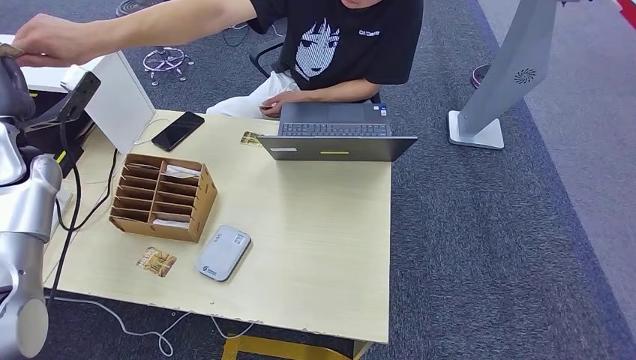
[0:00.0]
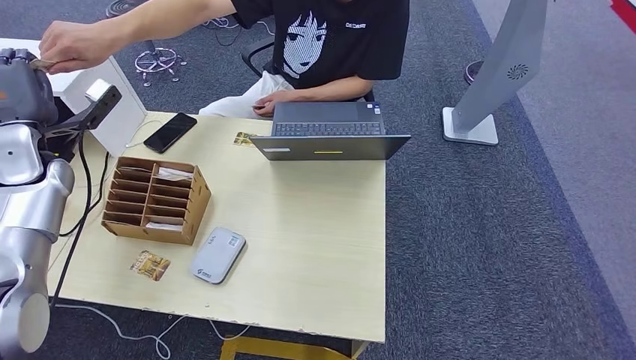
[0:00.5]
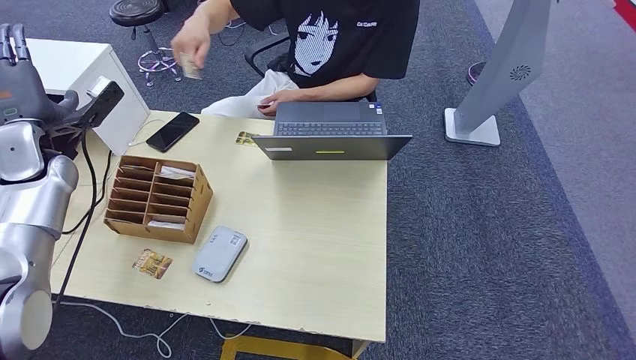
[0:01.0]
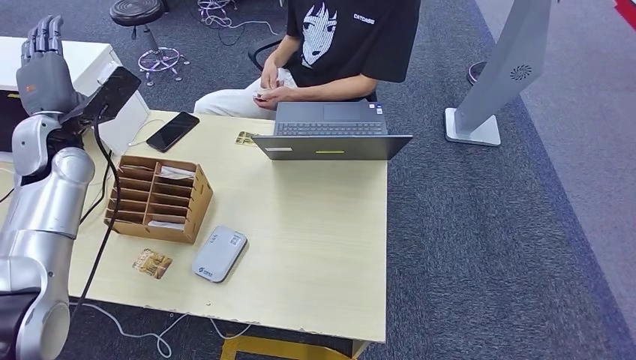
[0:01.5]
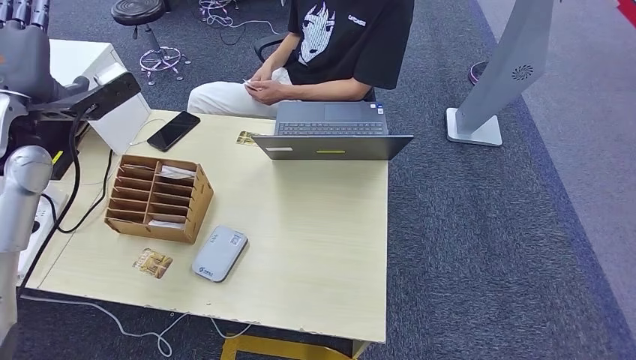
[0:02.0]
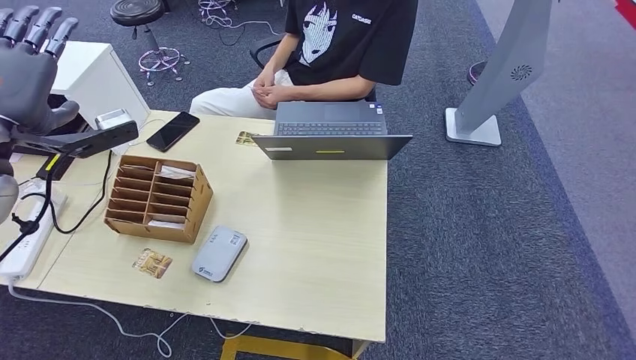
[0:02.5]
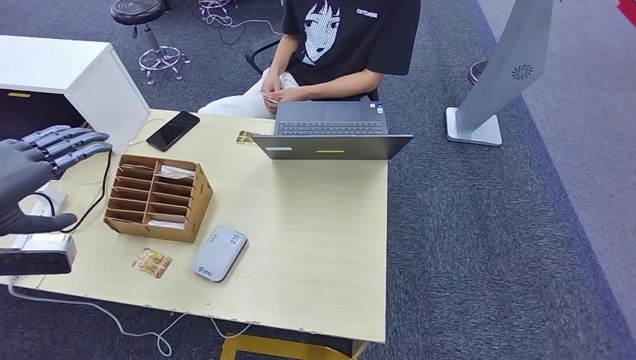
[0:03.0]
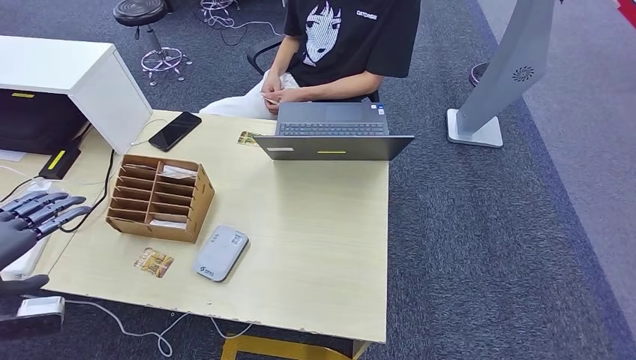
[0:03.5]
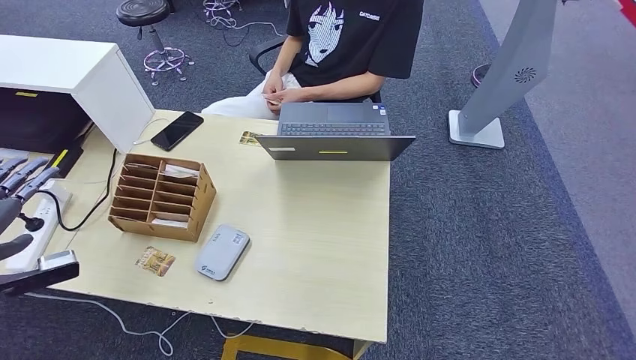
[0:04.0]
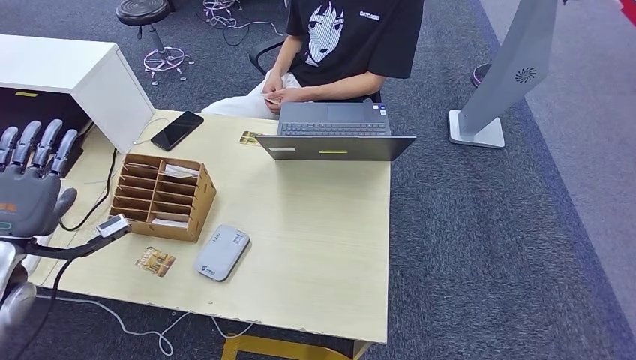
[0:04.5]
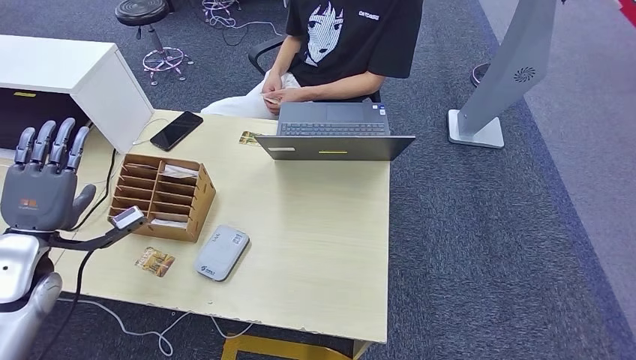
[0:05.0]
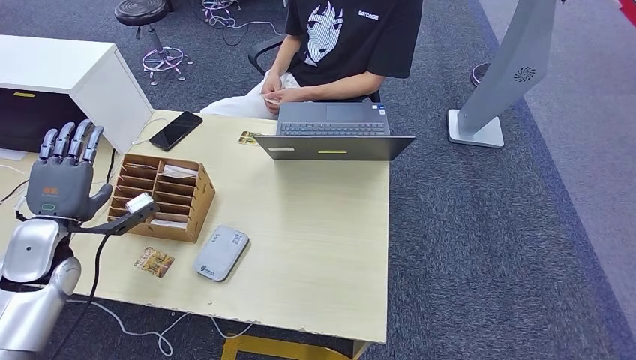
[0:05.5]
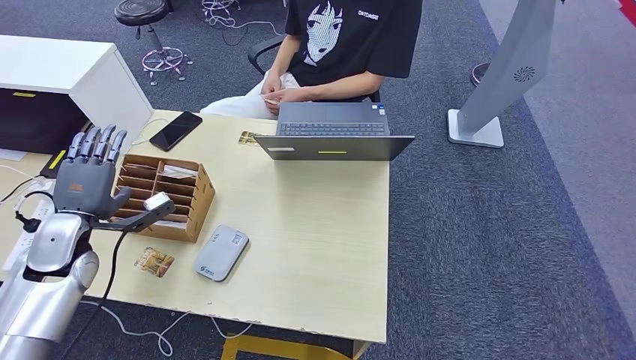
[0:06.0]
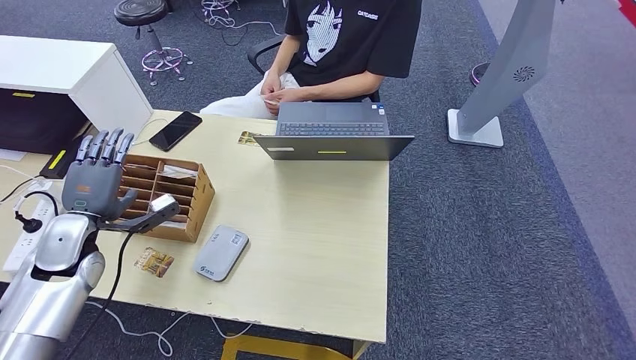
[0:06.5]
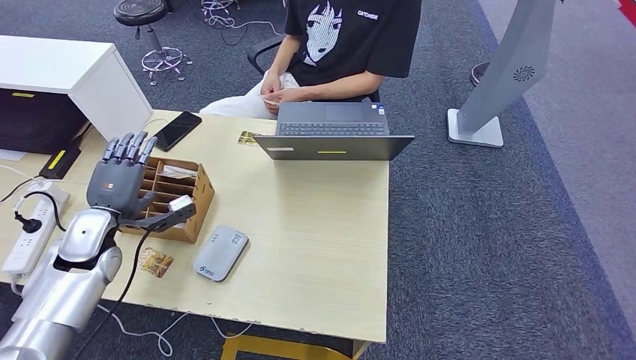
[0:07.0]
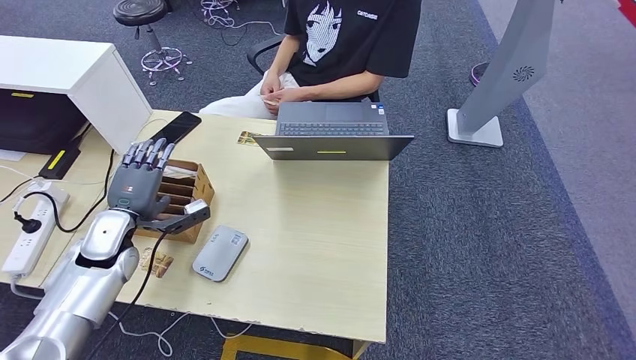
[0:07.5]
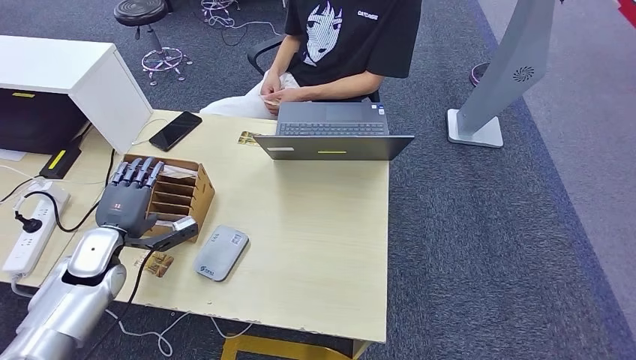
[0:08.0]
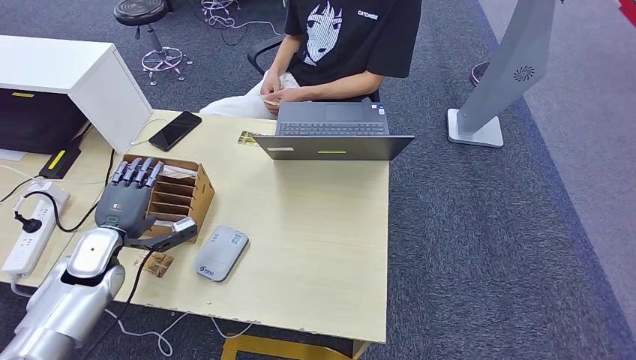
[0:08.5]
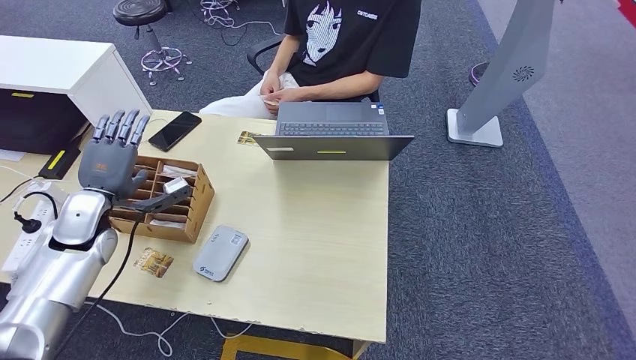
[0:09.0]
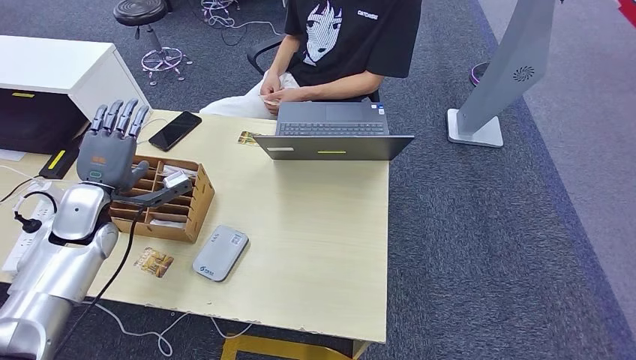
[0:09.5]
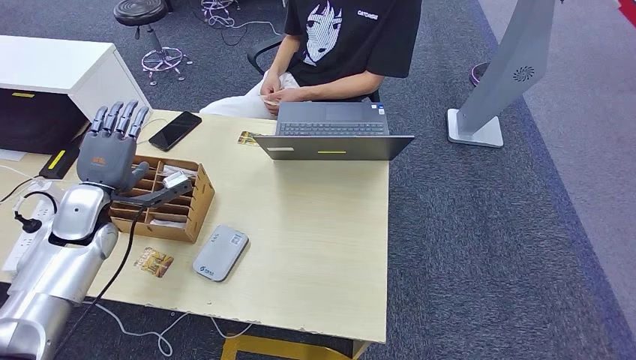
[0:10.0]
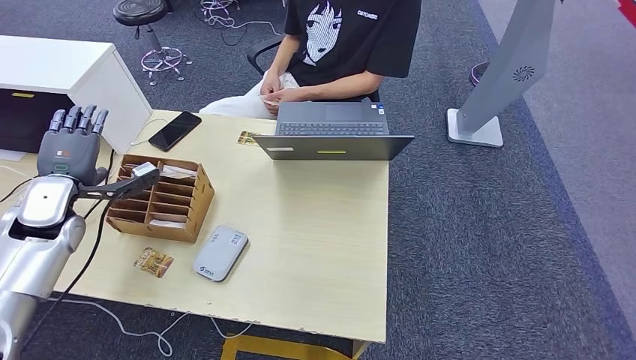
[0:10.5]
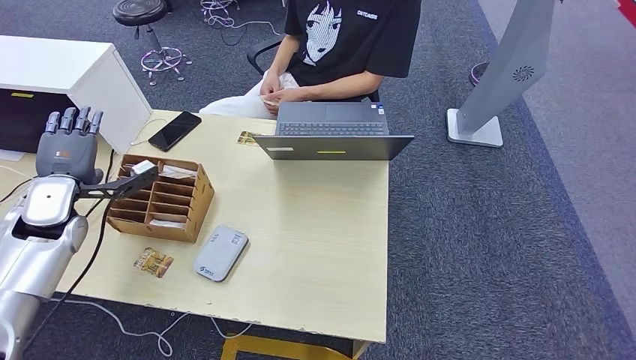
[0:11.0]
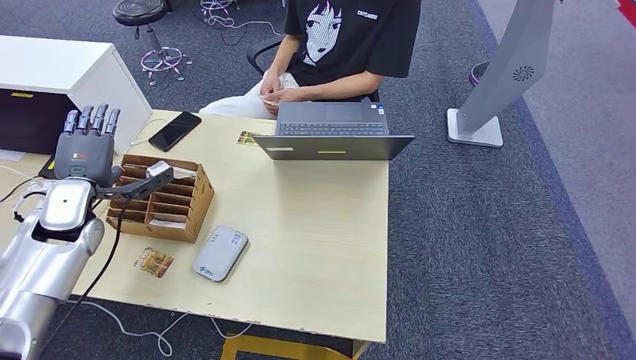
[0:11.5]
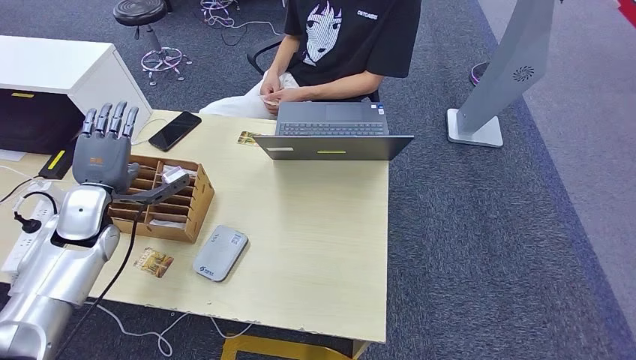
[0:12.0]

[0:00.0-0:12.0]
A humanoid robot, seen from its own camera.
0:02.0 to 0:04.0: The left hand moves backward, downward and to the left, roughly 20 cm.
0:04.0 to 0:06.0: The left hand heads forward, downward and to the right, covering some 15 cm.
0:06.0 to 0:08.0: The left hand shifts about 5 cm downward.
0:08.0 to 0:10.0: The left hand moves upward, some 5 cm.

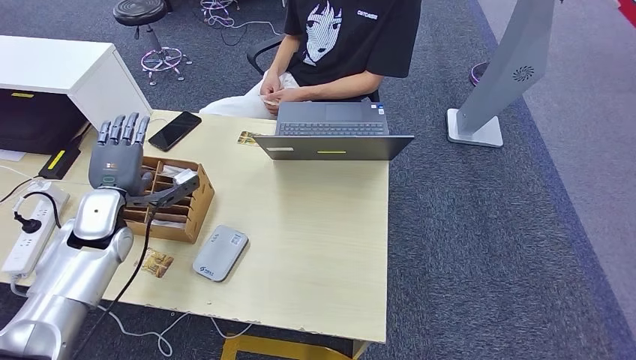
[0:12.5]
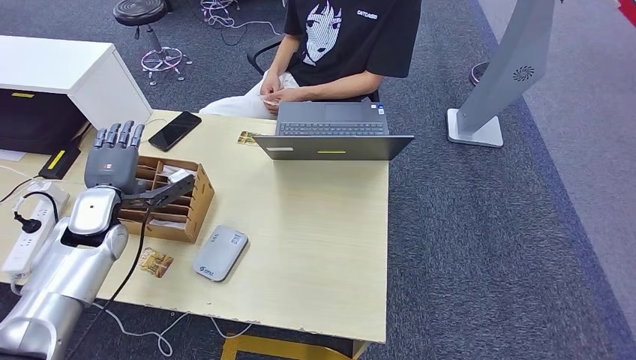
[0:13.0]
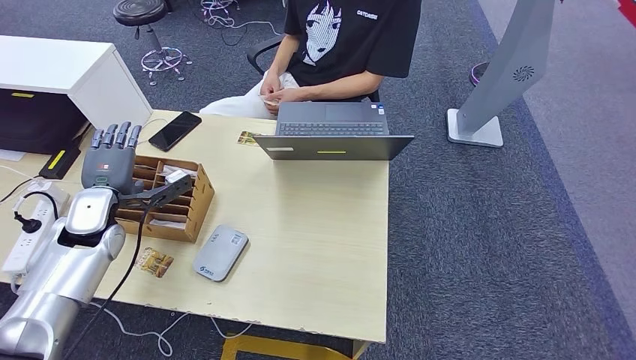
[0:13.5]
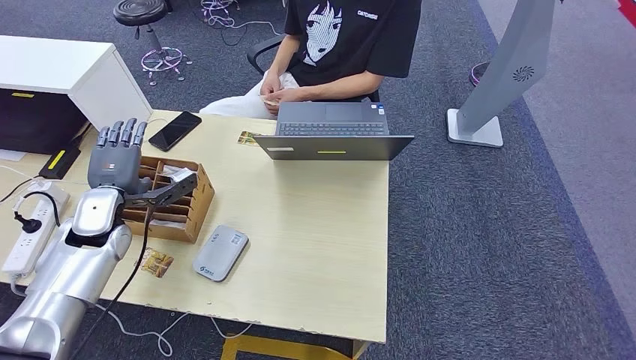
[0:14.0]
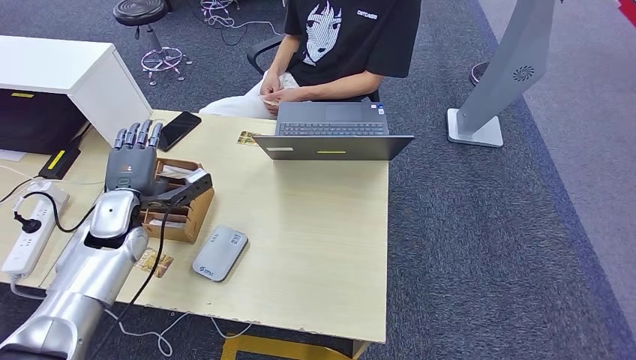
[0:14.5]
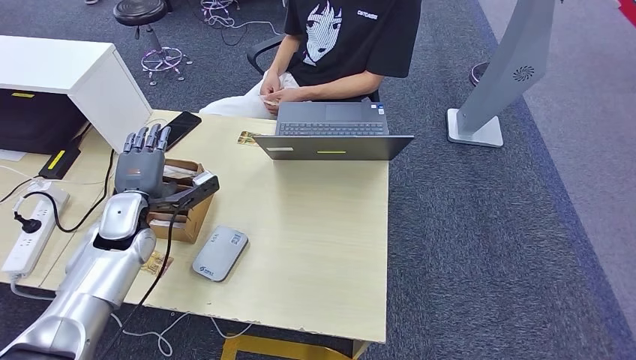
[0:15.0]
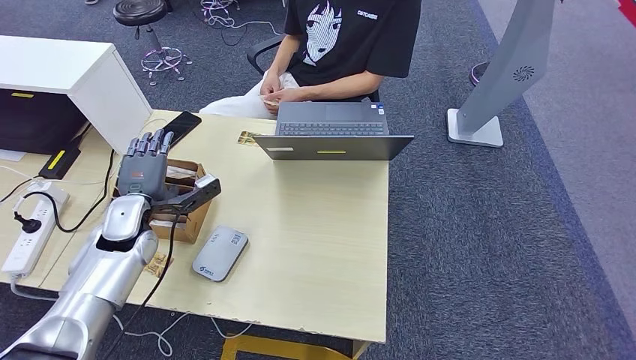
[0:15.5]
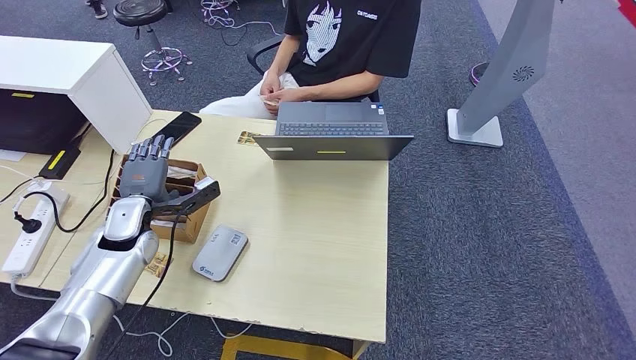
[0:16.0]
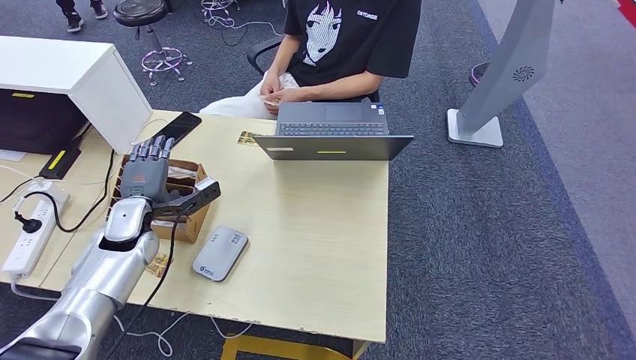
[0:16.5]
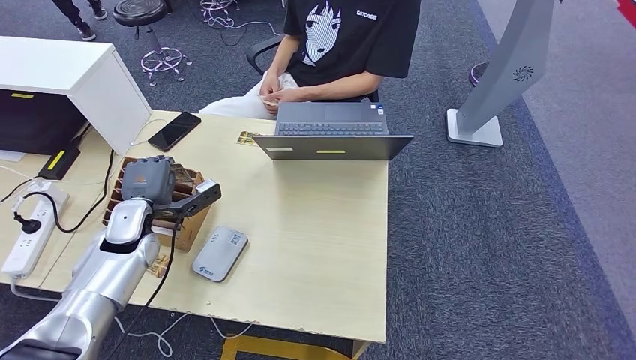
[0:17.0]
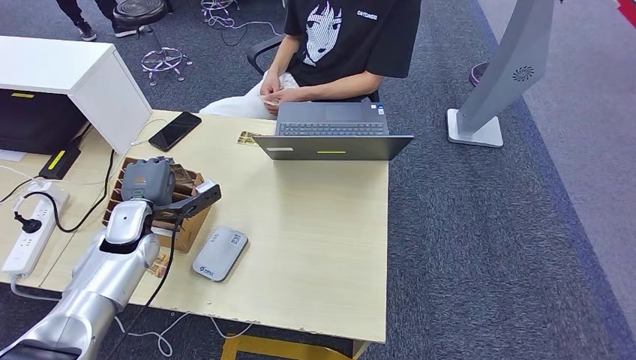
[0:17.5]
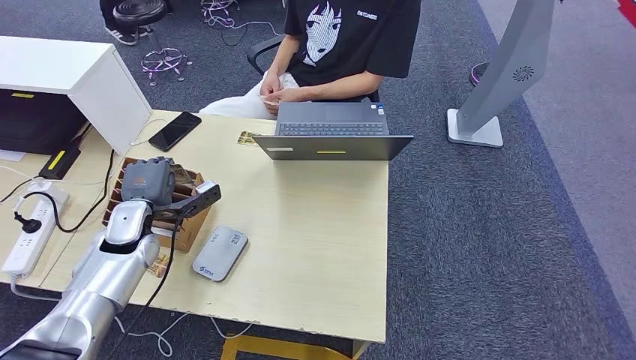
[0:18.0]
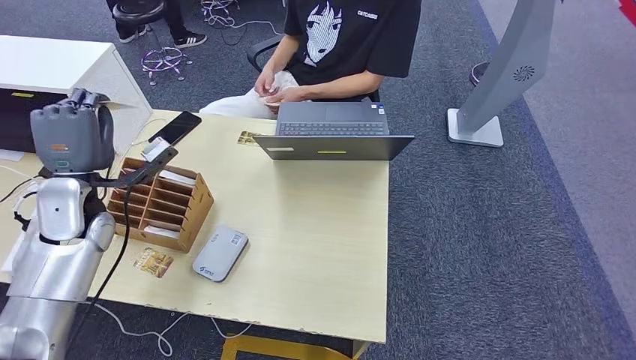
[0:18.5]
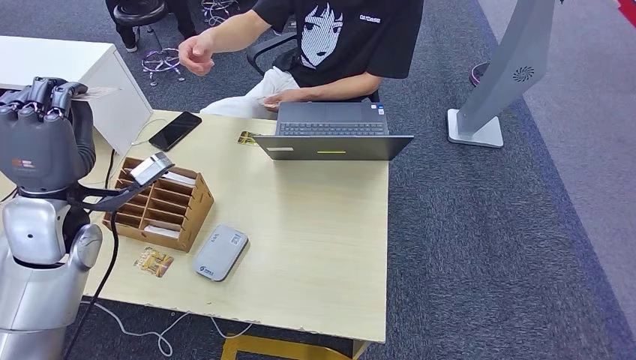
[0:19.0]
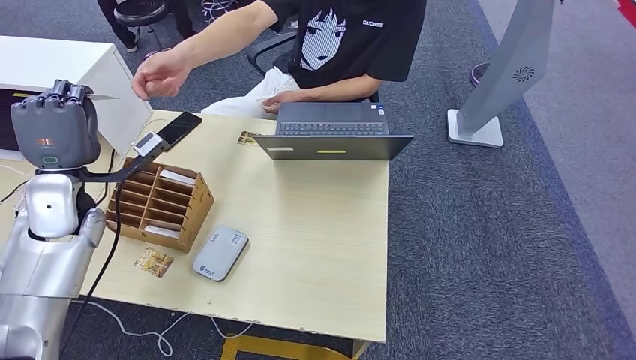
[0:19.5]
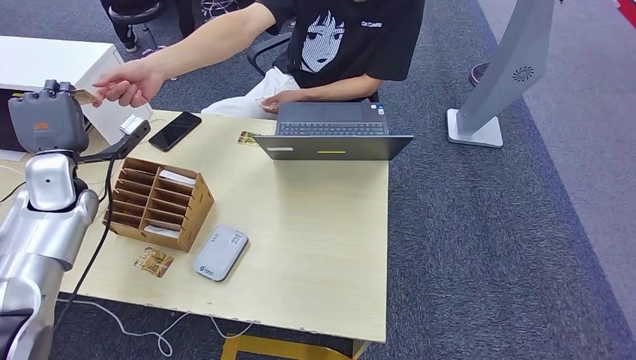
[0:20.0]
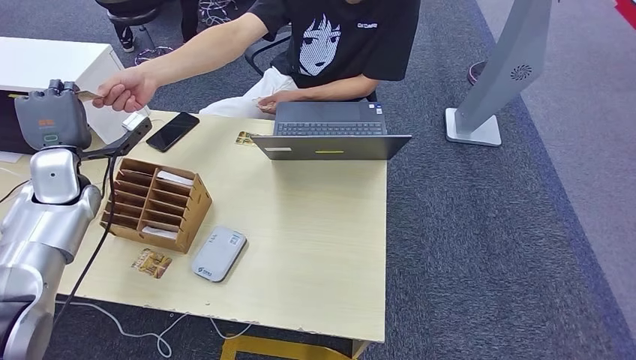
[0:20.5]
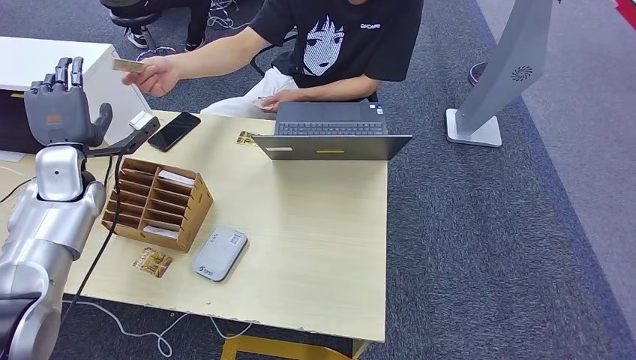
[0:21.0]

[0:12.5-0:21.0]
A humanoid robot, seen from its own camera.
Step, 0:12.5 to 0:17.5: Pick up the room key from the key card box.
Step, 0:18.0 to 0:21.0: Hand the room key to the person.
0:12.5 to 0:16.5: The hands make only small movements.
0:16.5 to 0:19.0: The left hand shifts some 15 cm upward and backward.
0:19.0 to 0:21.0: The left hand is displaced forward and to the left by some 15 cm.
